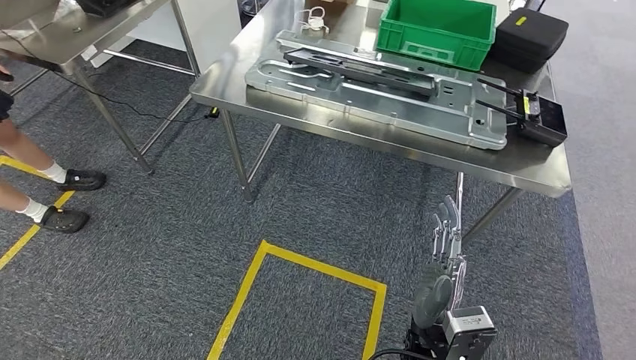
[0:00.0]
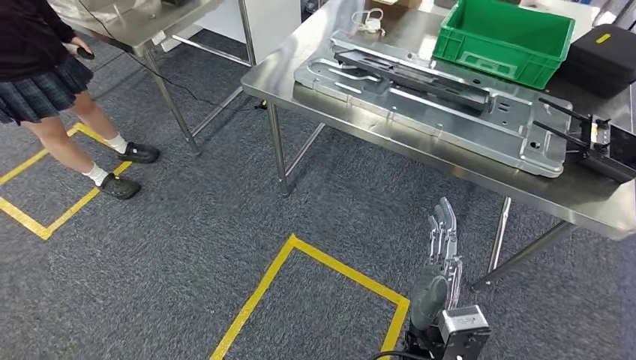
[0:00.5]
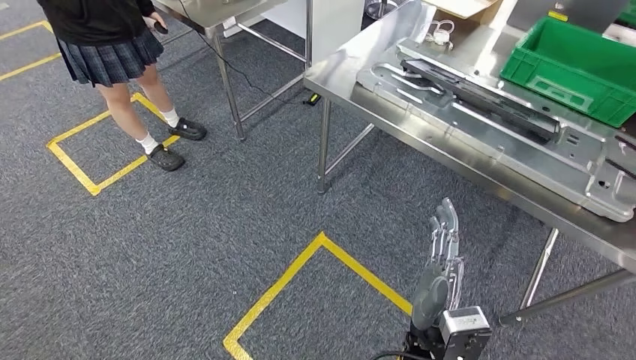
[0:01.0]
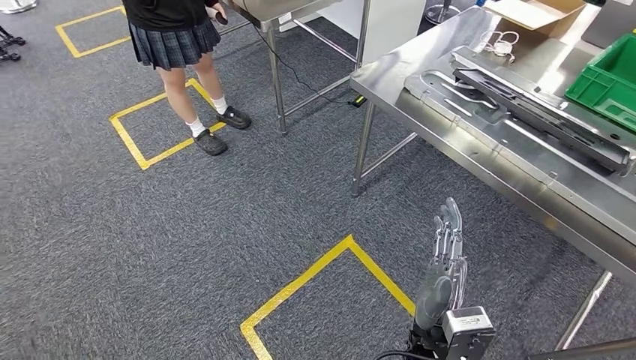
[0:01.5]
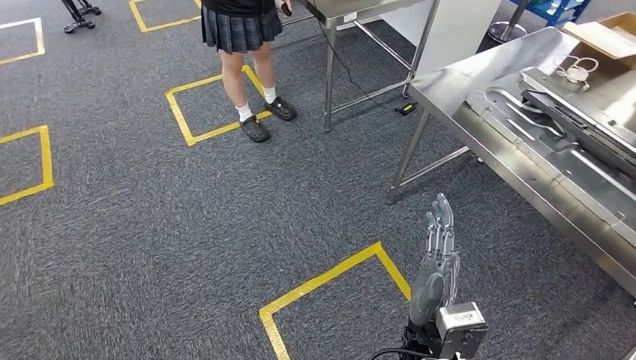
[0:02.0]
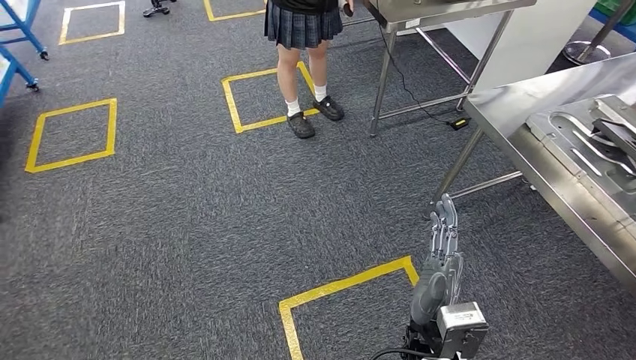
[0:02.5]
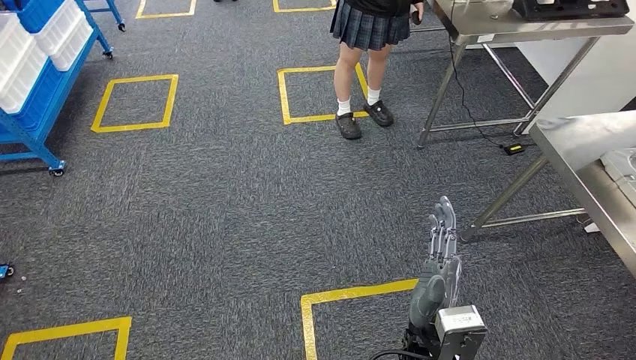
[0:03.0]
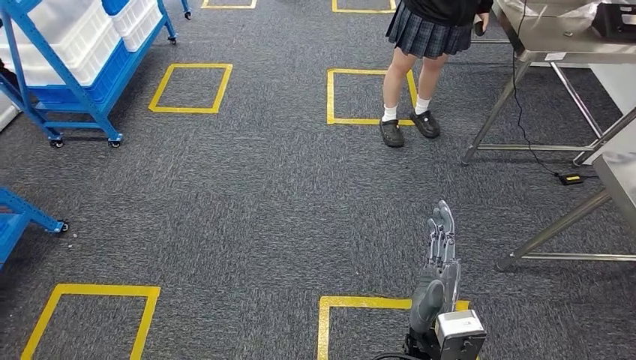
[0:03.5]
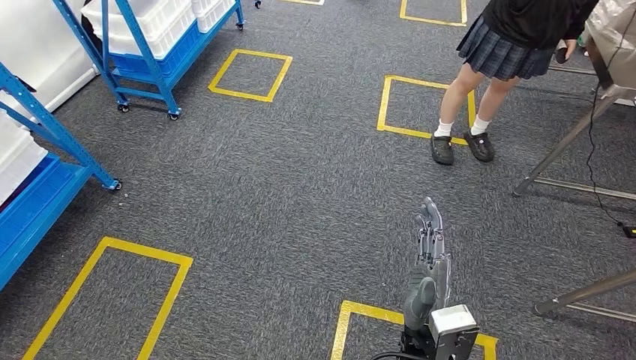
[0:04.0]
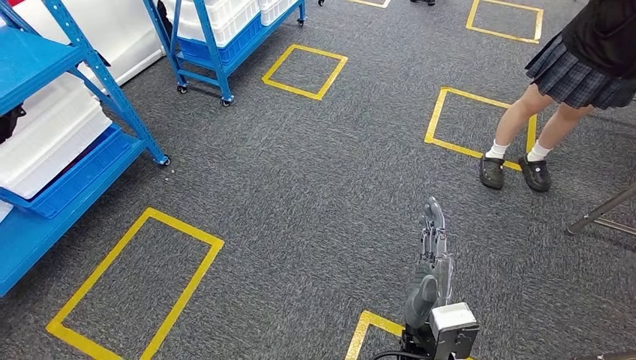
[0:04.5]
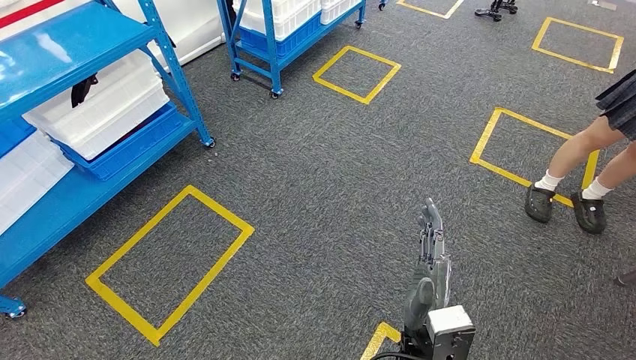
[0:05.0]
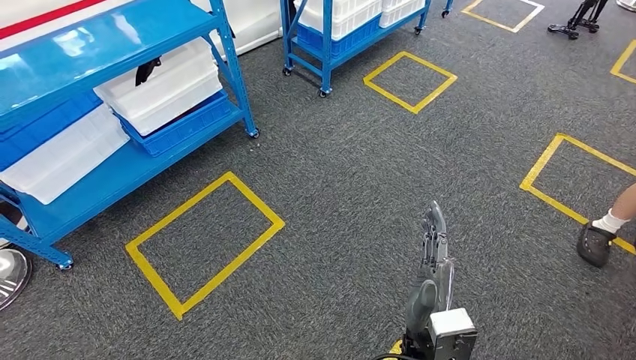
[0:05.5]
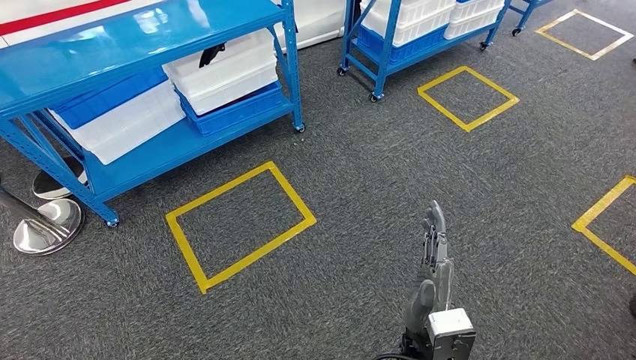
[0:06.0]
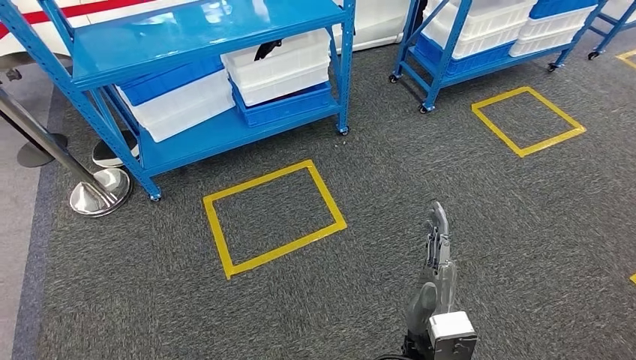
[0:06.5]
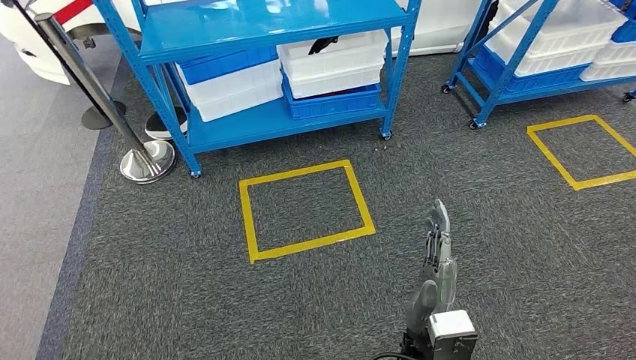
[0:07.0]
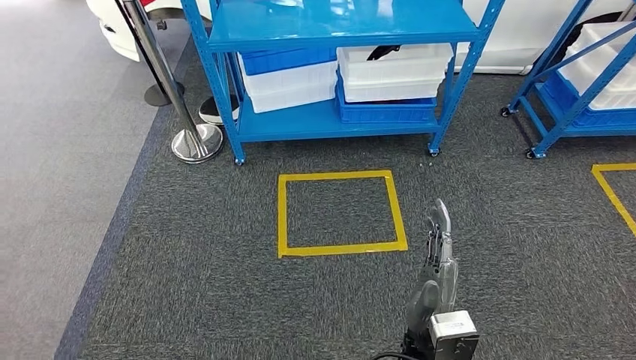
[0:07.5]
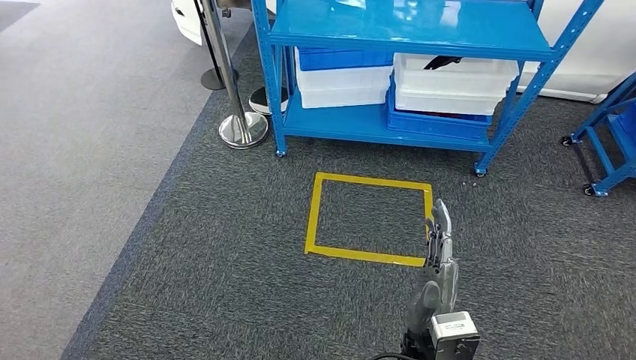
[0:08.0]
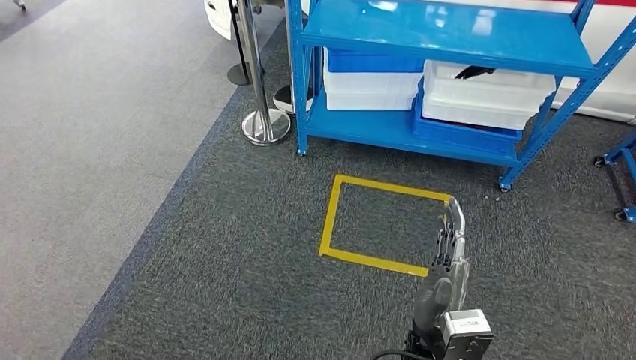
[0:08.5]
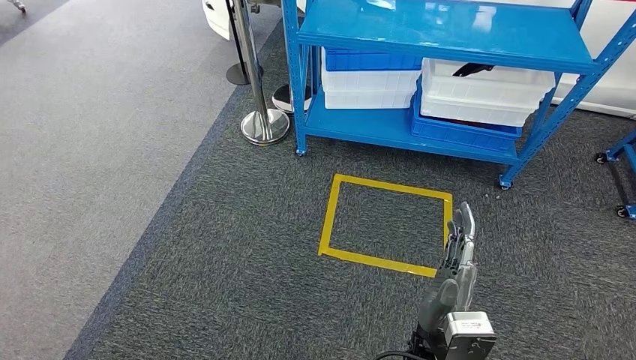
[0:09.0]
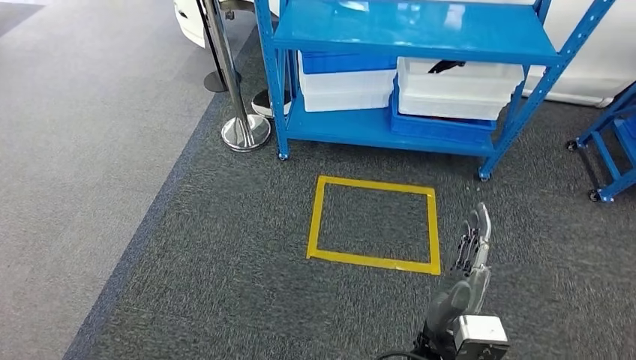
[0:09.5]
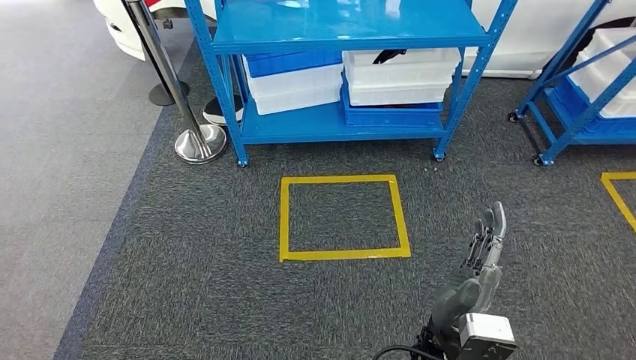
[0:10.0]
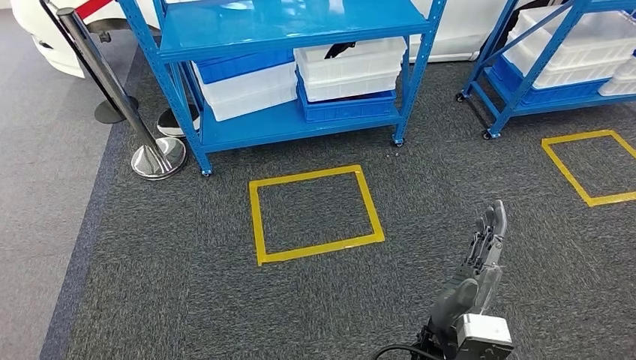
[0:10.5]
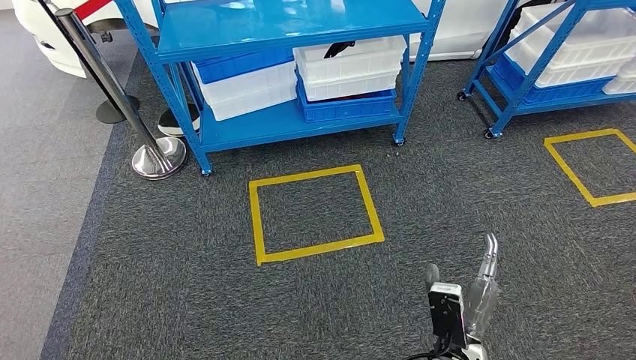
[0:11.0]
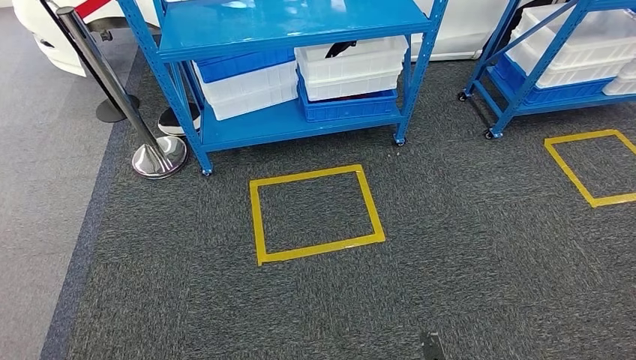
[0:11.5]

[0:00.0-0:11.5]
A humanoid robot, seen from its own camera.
Step, 0:00.0 to 0:11.5: Return to the initial position at the shelf.
